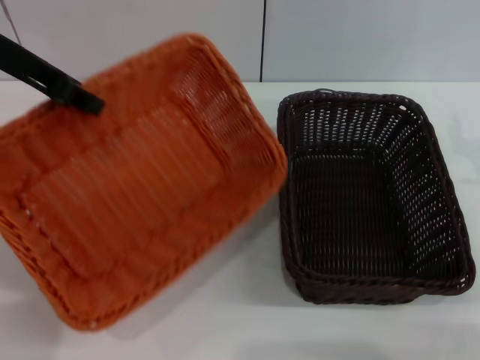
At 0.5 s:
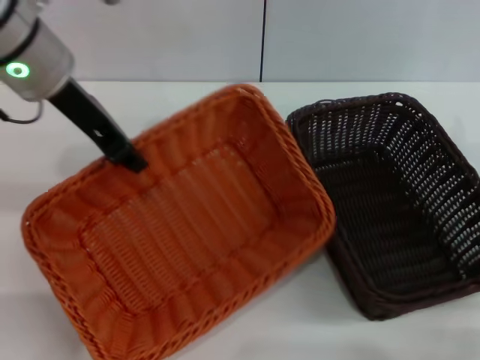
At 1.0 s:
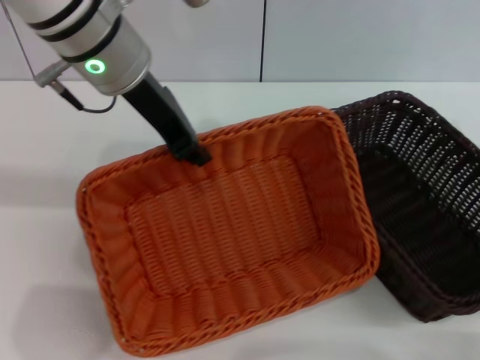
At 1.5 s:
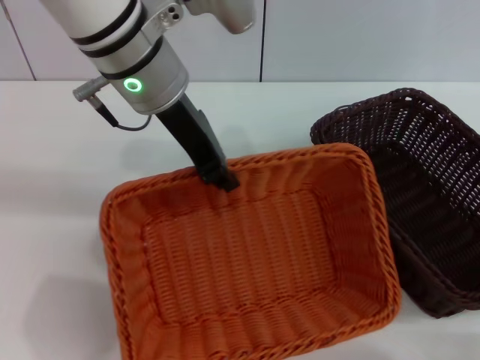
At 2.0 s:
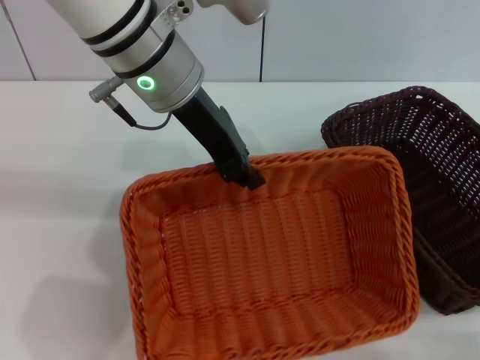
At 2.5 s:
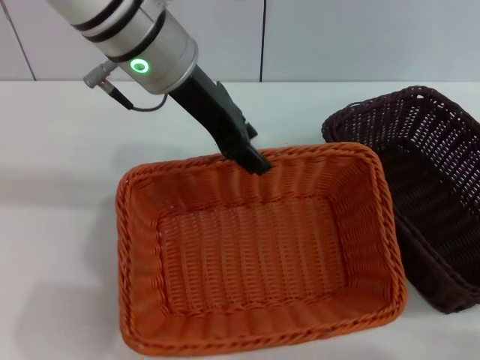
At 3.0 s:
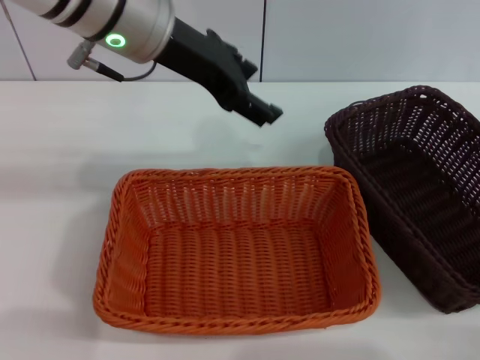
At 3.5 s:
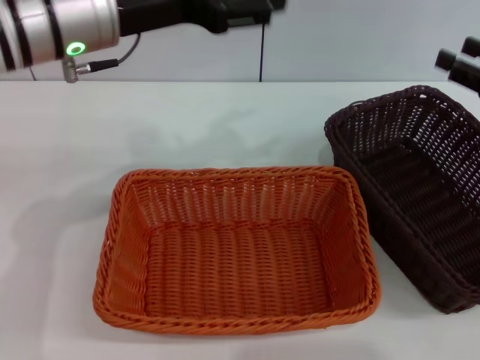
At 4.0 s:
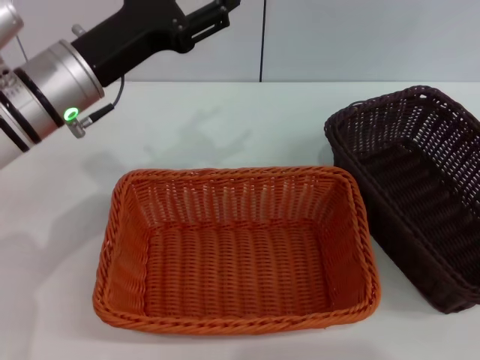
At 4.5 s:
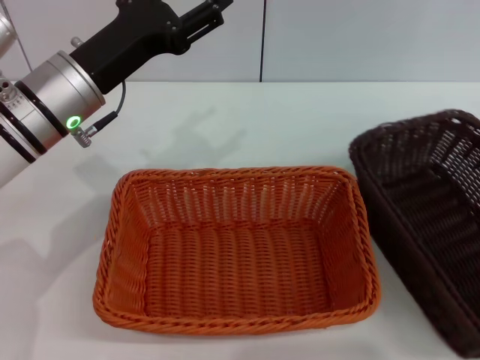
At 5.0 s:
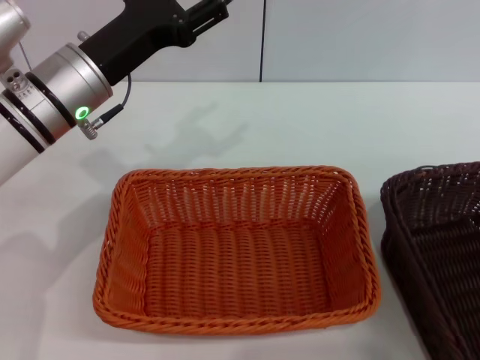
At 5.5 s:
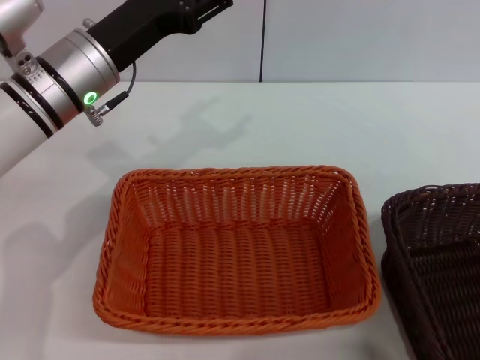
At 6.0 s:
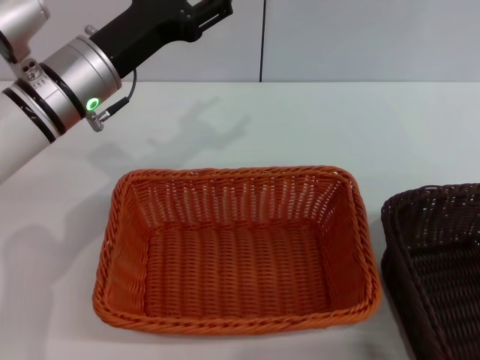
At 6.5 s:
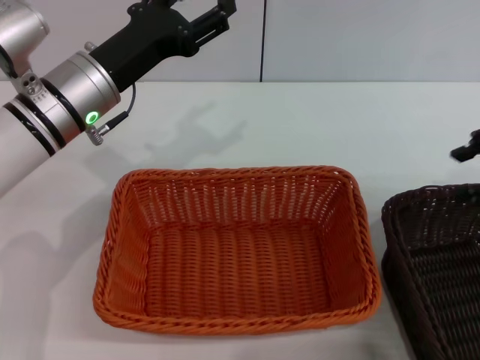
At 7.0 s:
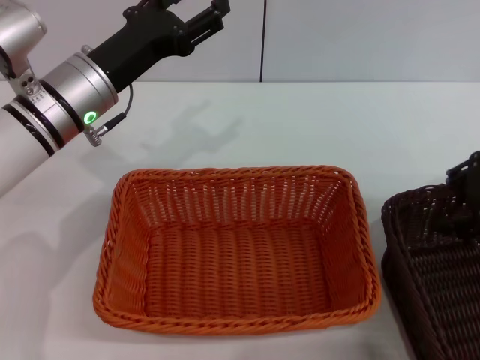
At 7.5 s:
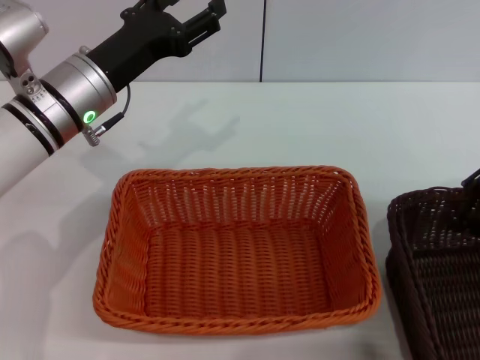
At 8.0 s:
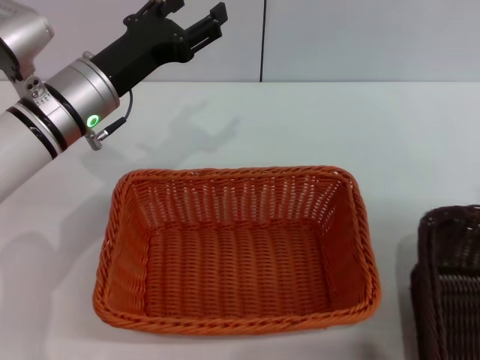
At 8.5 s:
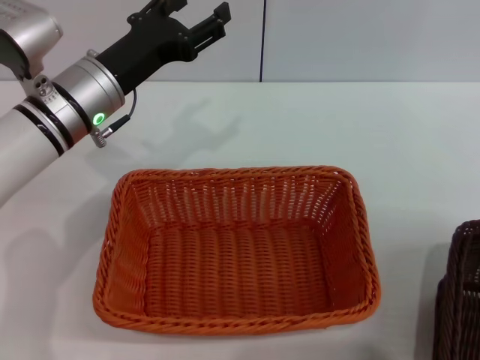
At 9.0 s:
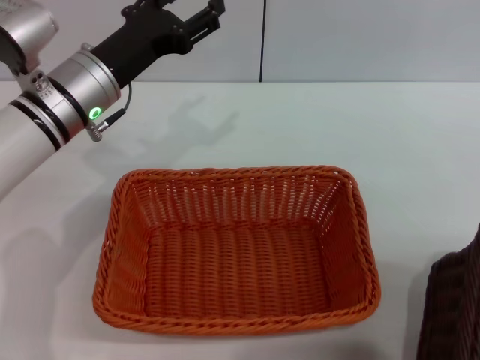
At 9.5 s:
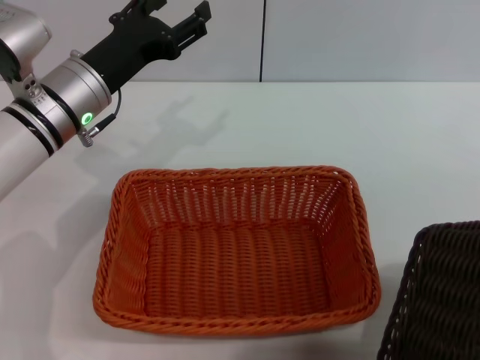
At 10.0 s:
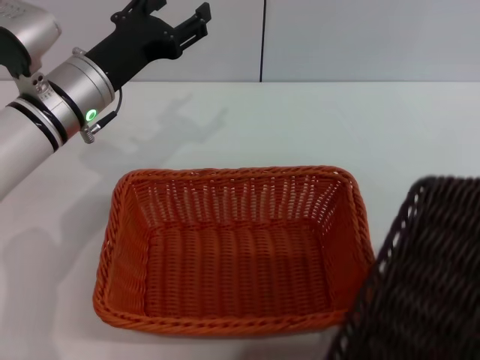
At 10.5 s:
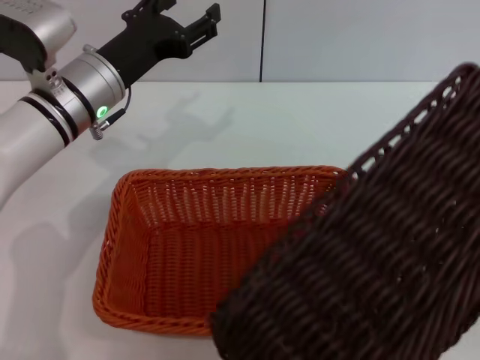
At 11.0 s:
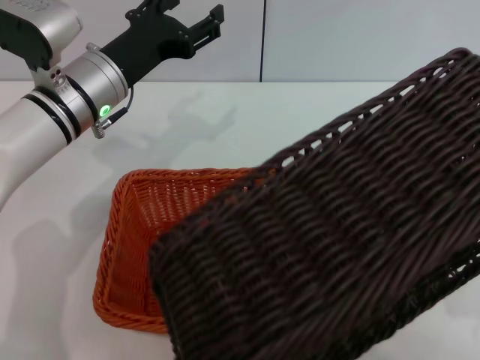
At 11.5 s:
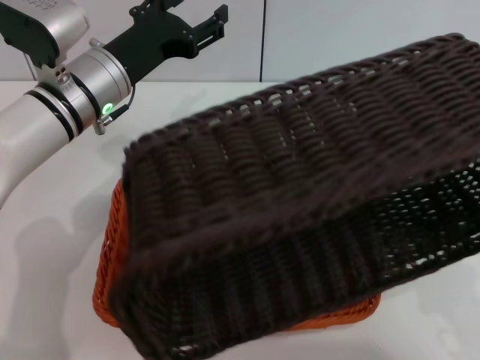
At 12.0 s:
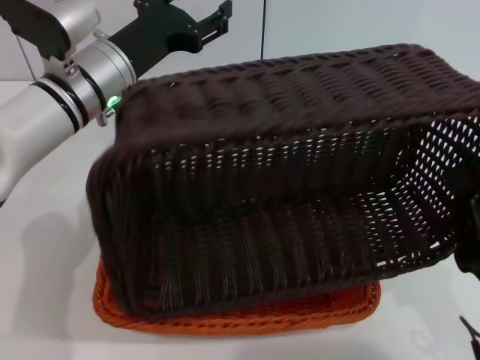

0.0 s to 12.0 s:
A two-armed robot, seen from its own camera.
Step, 0.0 to 2.5 s: Place the light basket in the center of view with the left gripper.
Step, 3.0 to 8.5 s: Pick up the dark basket with the right gripper.
0.0 to 2.0 s: The left gripper is displaced to the right by about 15 cm.
2.0 to 4.0 s: The left gripper heads to the left and downward, covering roughly 10 cm, and opens. The right gripper is displaced upward and to the right by approximately 15 cm.
6.0 to 8.0 s: The right gripper closes its fingers.
8.0 to 10.0 s: The right gripper moves backward, approximately 10 cm.
10.0 to 12.0 s: The right gripper moves to the left, downward and backward, roughly 20 cm.

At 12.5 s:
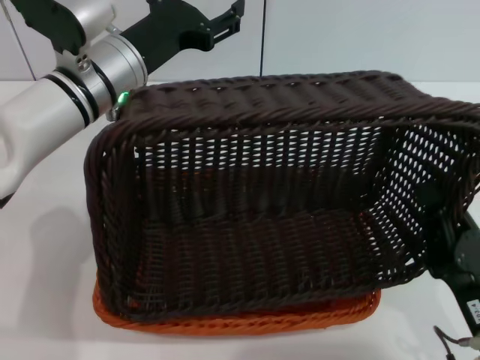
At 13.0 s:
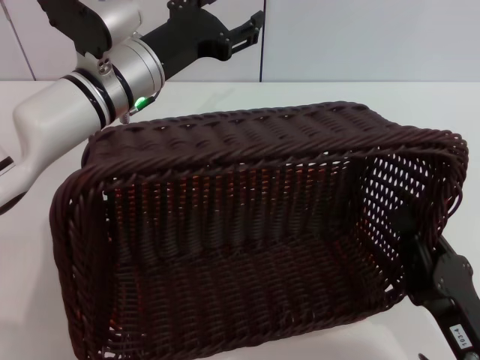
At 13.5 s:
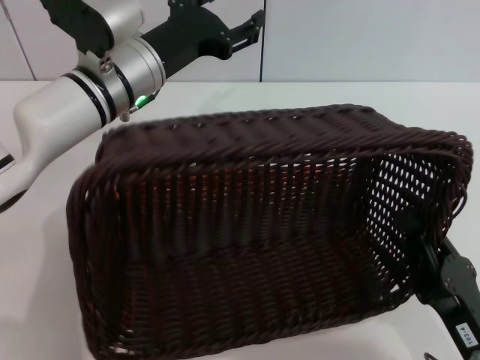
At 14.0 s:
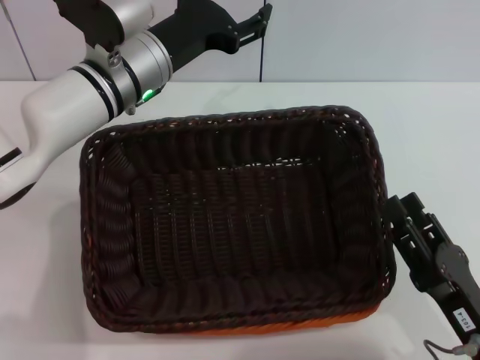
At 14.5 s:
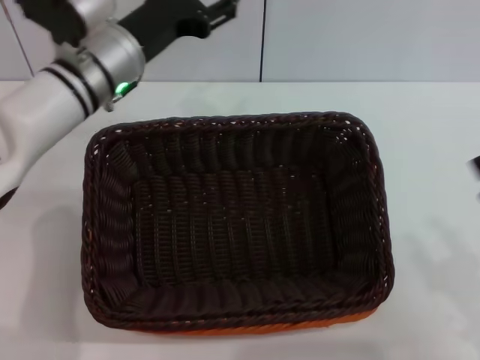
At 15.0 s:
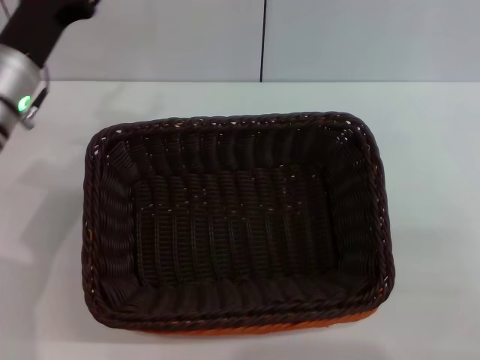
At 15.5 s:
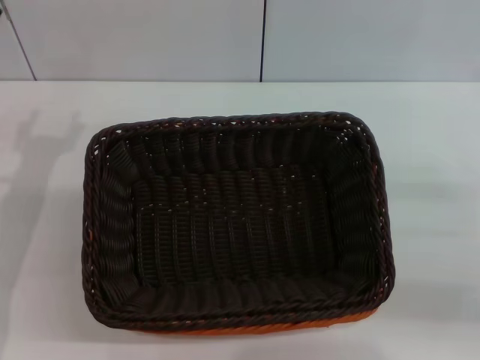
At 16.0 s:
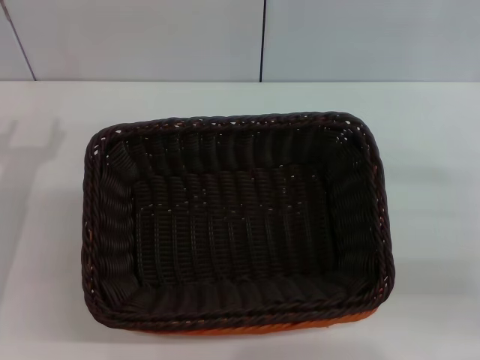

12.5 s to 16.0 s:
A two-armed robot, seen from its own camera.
12.5 to 14.5 s: The right gripper travels to the right by approximately 5 cm, and opens up.
14.5 to 16.0 s: The left gripper travels to the left and backward by approximately 20 cm, while the right gripper travels forward and to the right by about 15 cm.
